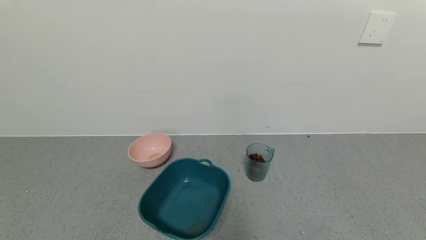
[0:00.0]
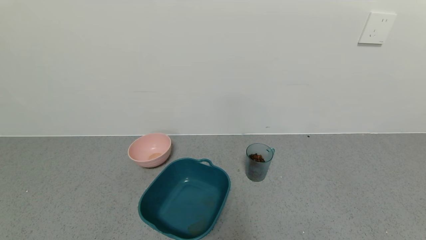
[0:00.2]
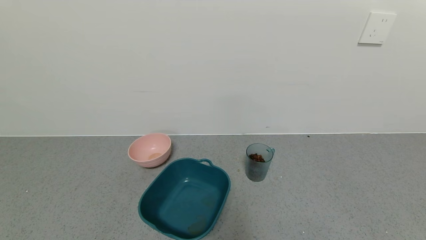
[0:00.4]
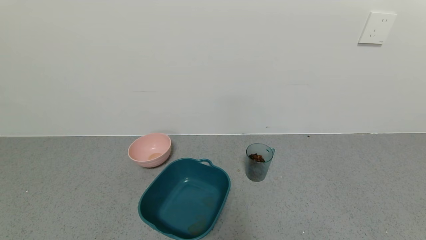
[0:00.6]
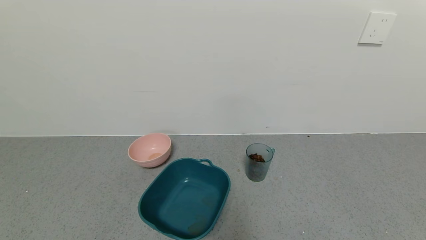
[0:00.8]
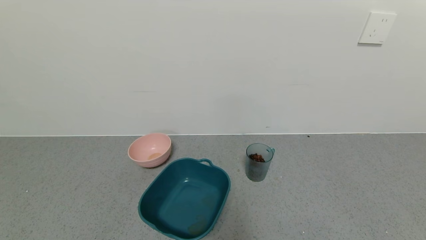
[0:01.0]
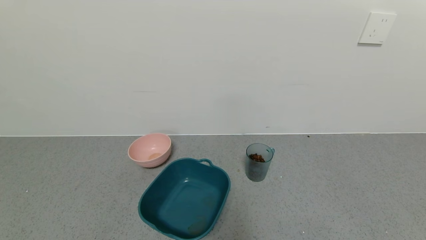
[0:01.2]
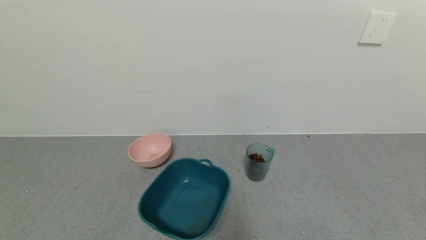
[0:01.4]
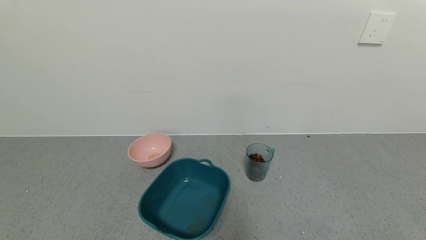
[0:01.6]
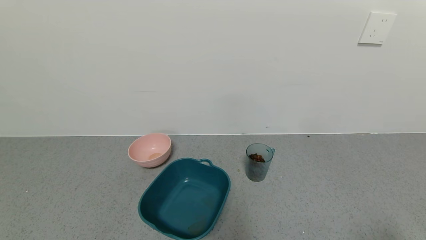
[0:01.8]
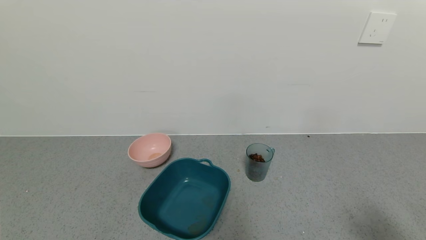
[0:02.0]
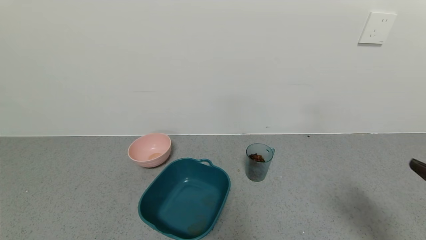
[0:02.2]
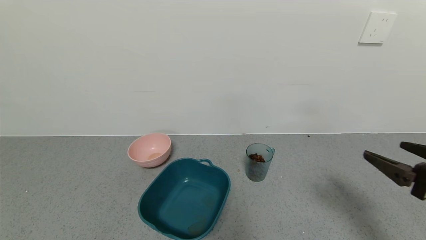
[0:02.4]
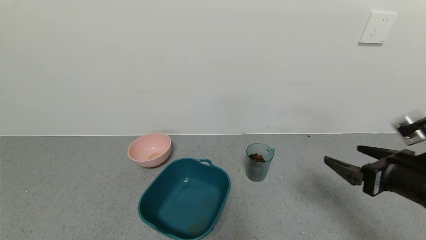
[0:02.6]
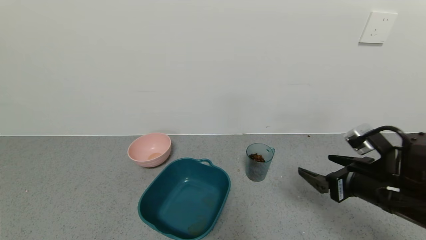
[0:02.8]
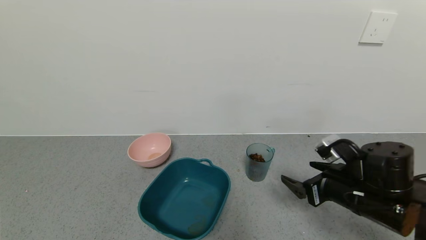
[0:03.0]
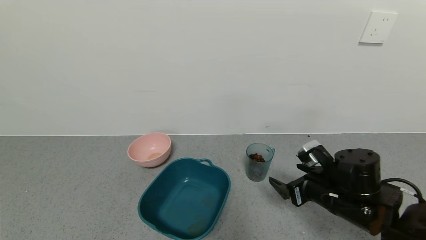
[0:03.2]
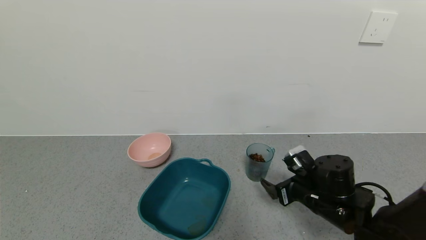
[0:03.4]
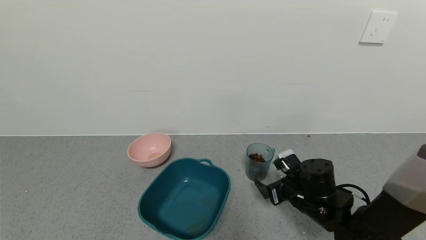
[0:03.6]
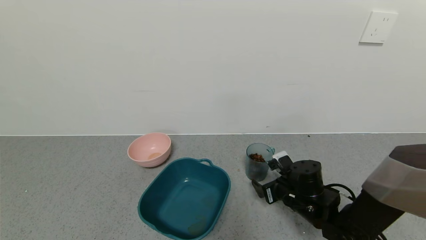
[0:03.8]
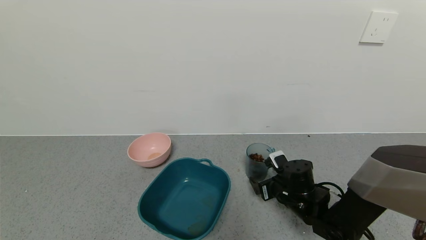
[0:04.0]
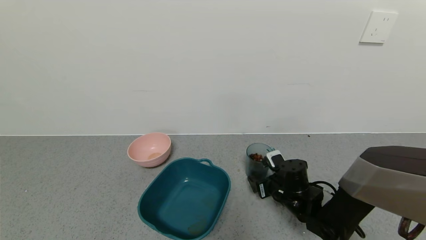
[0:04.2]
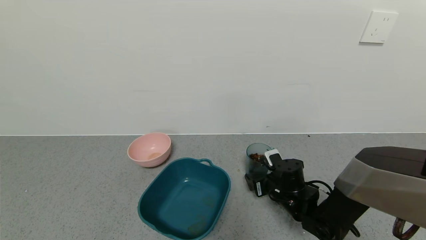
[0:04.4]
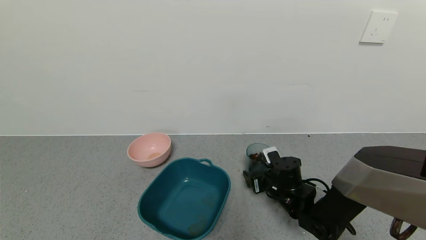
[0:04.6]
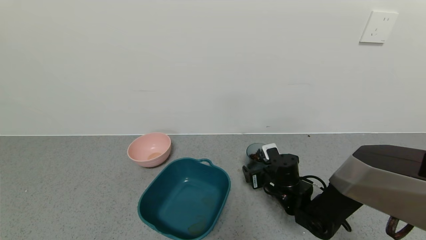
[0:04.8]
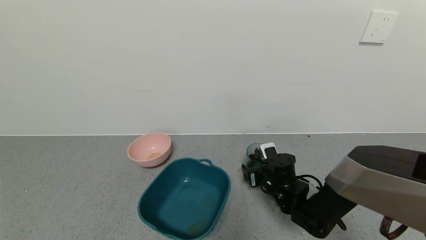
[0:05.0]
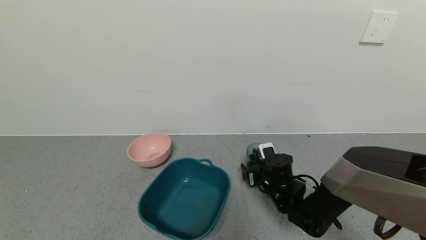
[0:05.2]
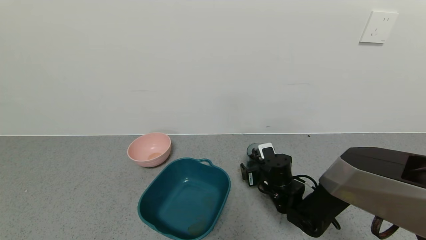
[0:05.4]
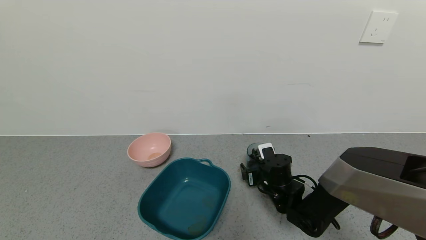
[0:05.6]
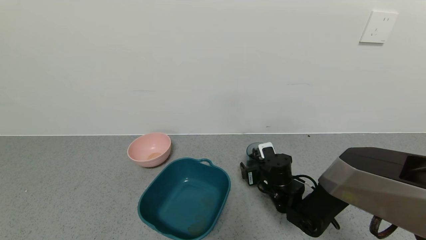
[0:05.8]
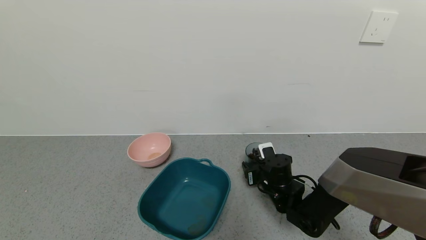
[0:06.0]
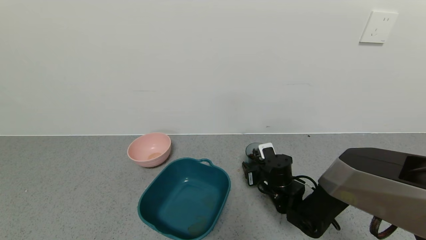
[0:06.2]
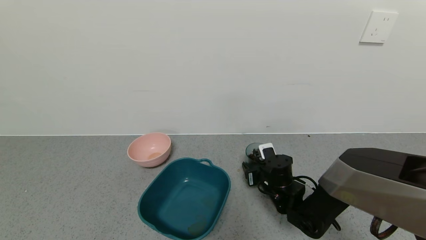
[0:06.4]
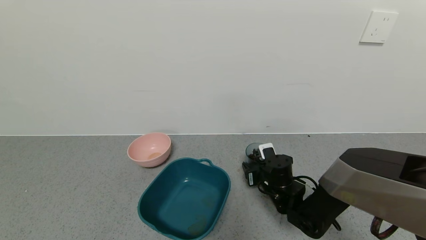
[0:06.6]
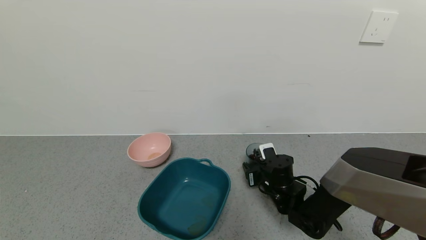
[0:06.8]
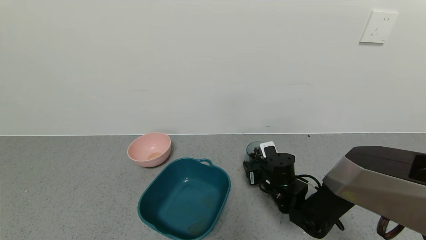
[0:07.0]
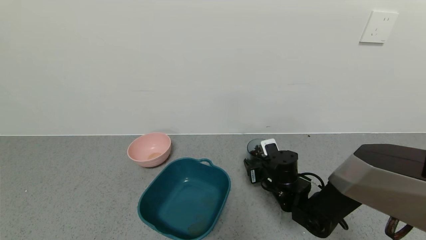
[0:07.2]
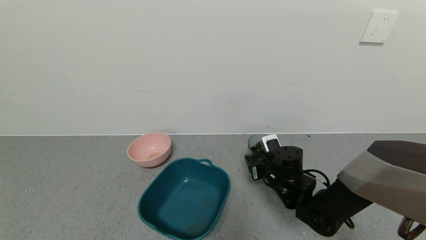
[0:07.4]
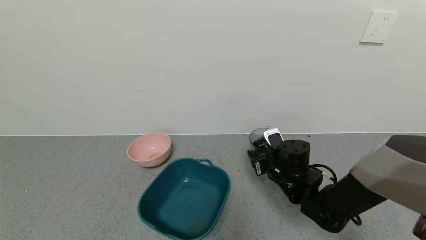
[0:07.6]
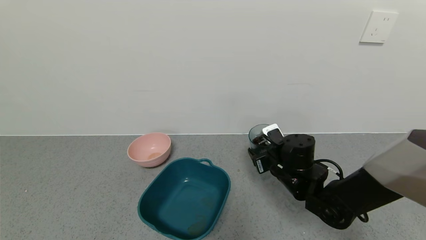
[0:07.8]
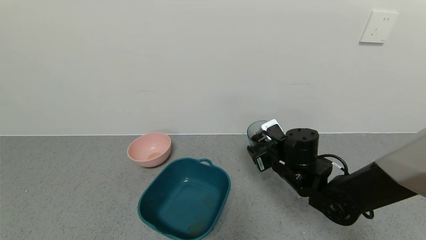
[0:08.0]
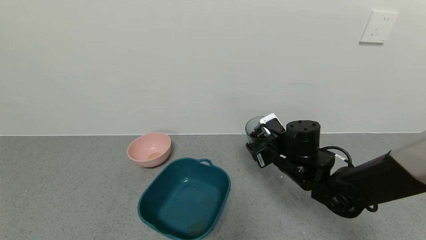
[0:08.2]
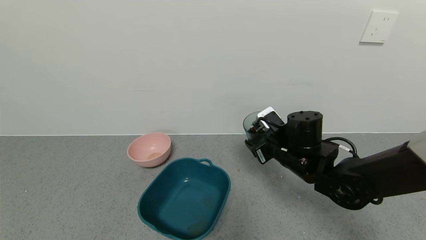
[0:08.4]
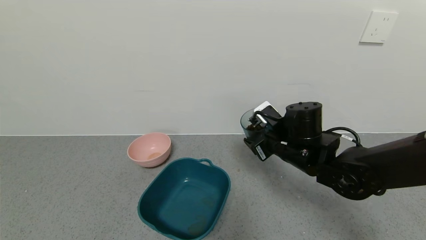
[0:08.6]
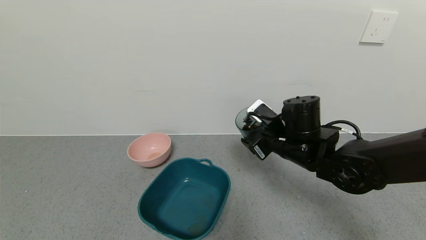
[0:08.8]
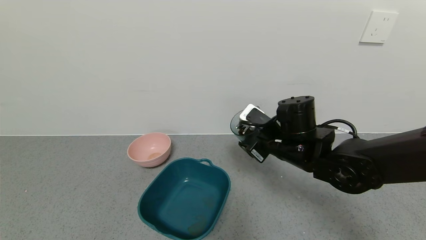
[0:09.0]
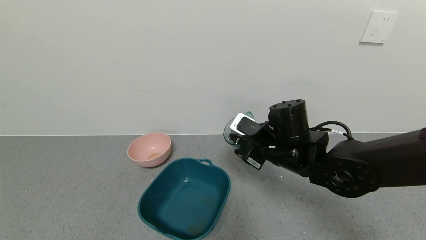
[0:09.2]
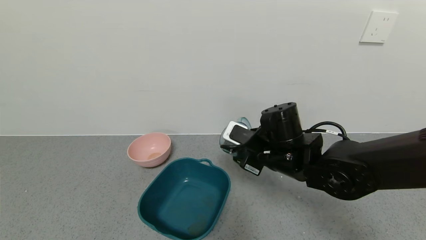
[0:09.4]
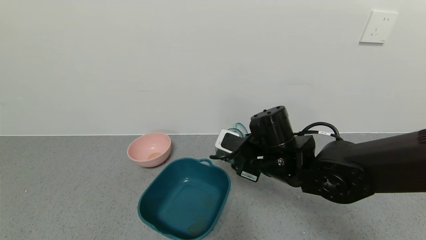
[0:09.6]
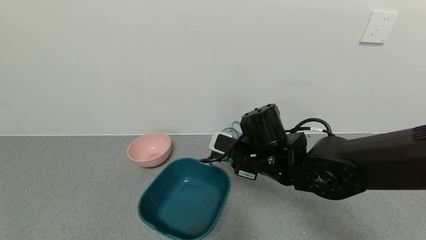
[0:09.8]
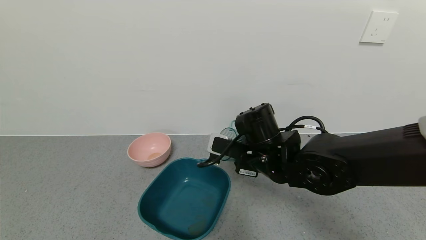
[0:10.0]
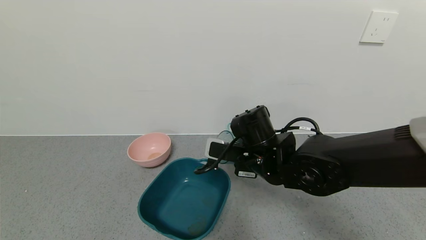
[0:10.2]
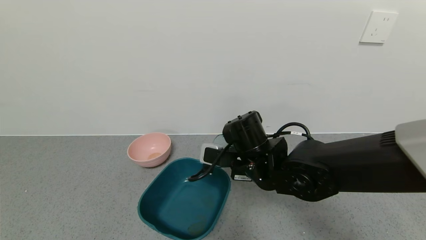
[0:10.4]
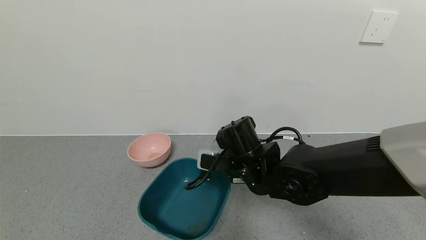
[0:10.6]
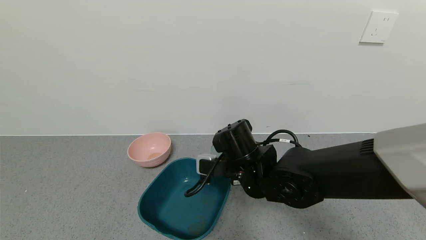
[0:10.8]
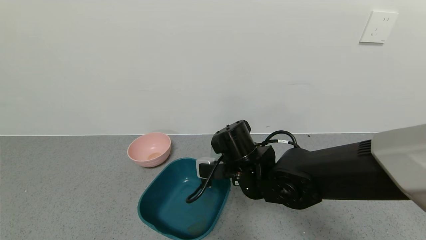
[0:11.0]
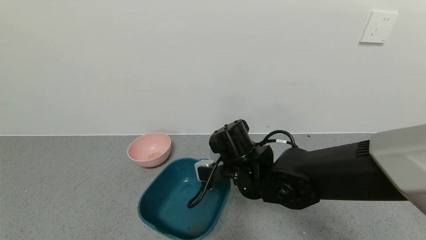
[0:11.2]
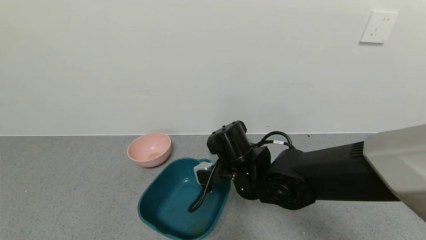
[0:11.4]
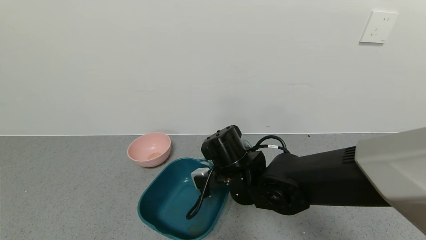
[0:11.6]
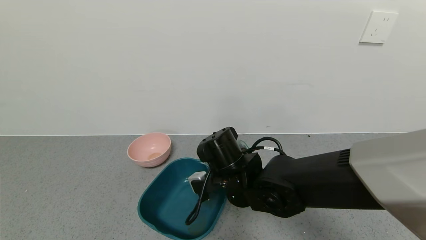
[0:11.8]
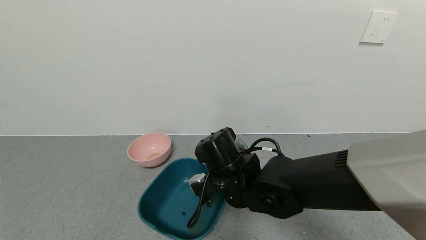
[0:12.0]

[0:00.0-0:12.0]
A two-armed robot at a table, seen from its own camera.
Task of the whole recording: use a gripper to pick up the cup and pour the solid into a bowl or tray.
Step, 0:00.0 to 0:06.4: Grasp the glass of coffee beans with the right gripper.
0:01.6 to 0:03.0: The right gripper shifts some 30 cm forward and to the left.
0:03.0 to 0:04.4: The right gripper is displaced downward, forward and to the left by some 15 cm.
0:04.4 to 0:06.0: The right gripper closes.
0:06.0 to 0:07.6: The right gripper shifts roughly 5 cm upward.
0:07.6 to 0:09.0: The right gripper is displaced upward by some 10 cm.
0:09.0 to 0:10.4: The right gripper shifts approximately 5 cm to the left.

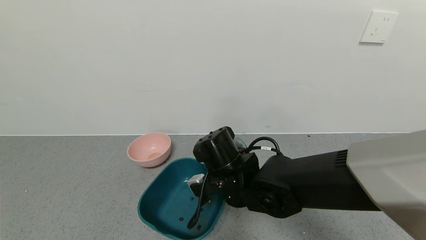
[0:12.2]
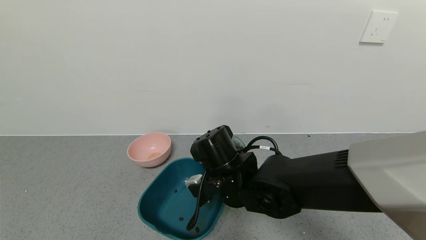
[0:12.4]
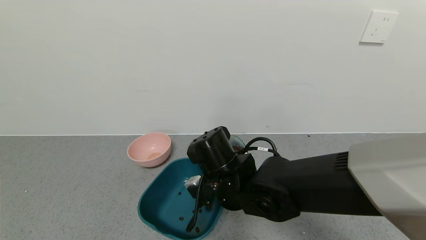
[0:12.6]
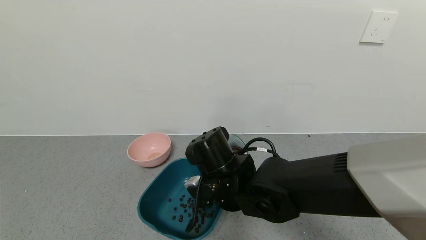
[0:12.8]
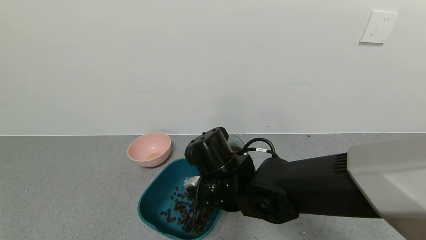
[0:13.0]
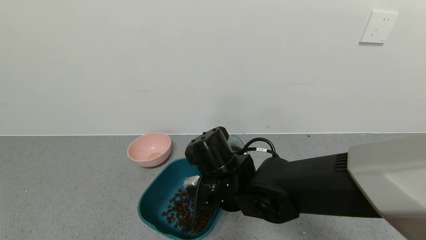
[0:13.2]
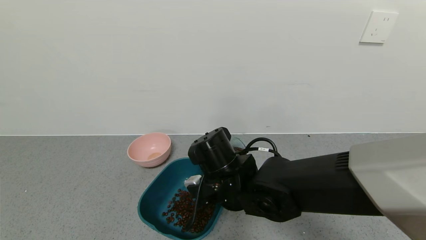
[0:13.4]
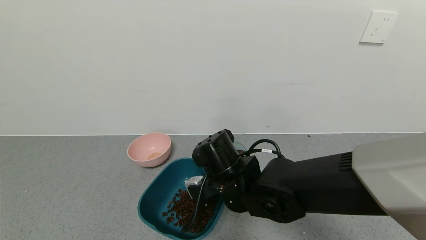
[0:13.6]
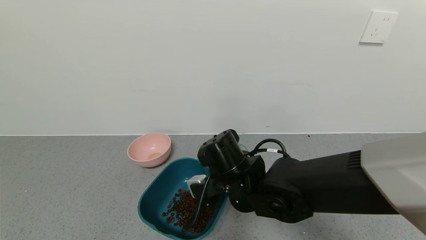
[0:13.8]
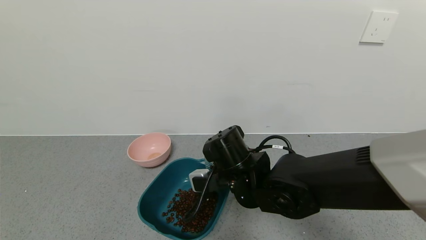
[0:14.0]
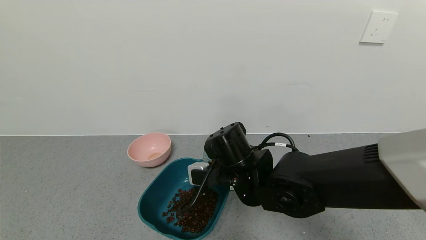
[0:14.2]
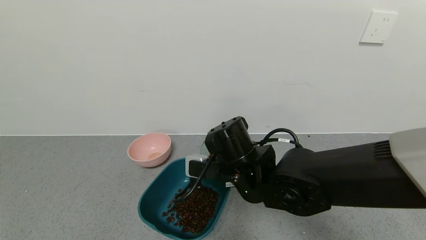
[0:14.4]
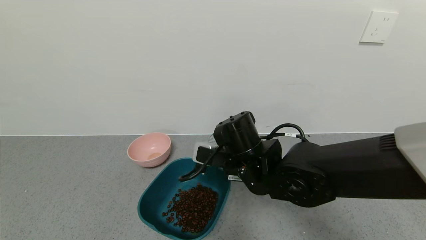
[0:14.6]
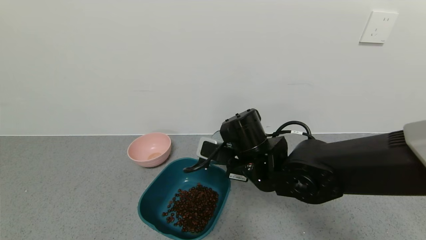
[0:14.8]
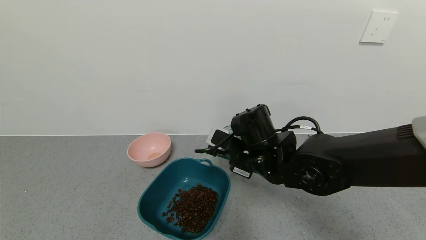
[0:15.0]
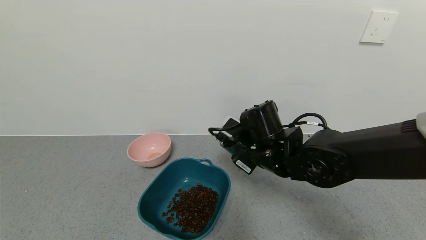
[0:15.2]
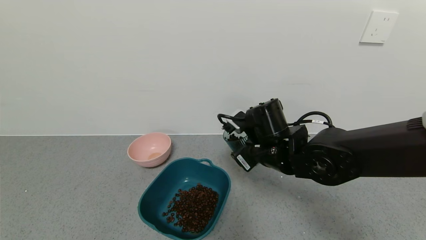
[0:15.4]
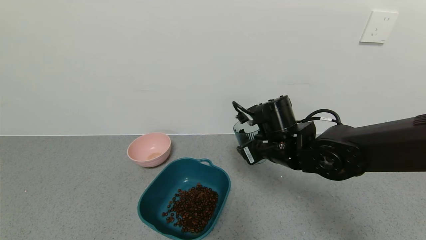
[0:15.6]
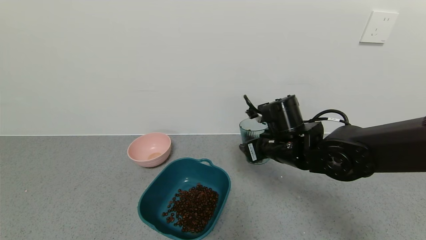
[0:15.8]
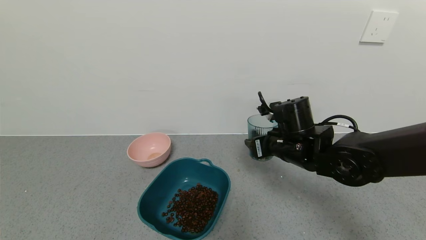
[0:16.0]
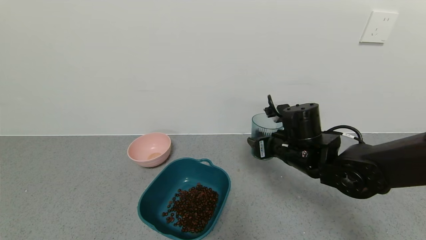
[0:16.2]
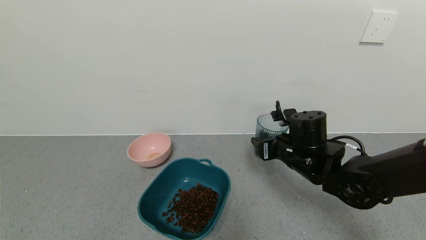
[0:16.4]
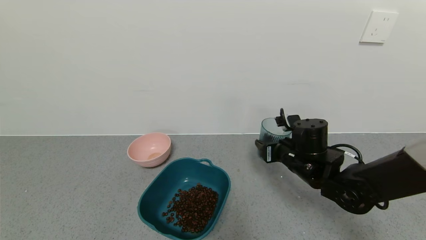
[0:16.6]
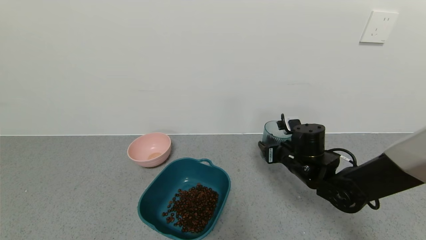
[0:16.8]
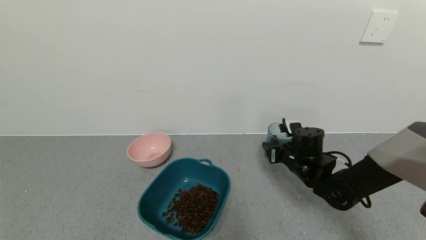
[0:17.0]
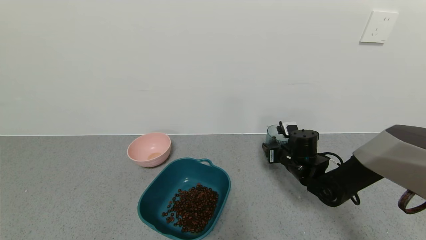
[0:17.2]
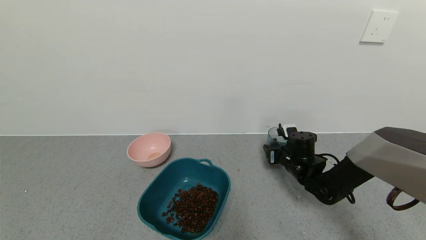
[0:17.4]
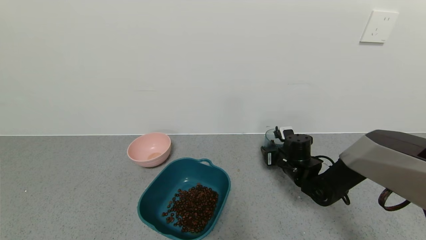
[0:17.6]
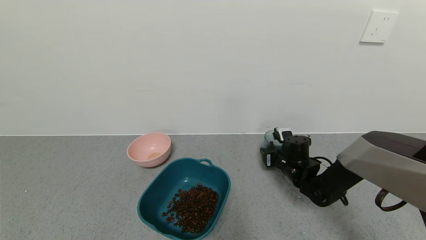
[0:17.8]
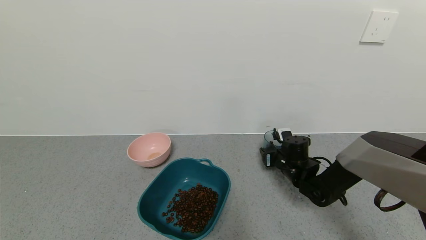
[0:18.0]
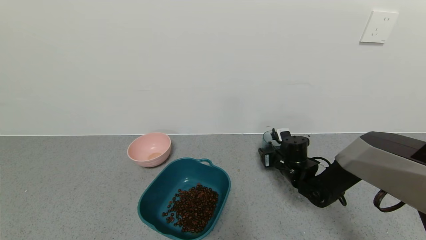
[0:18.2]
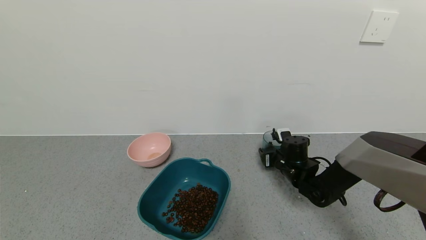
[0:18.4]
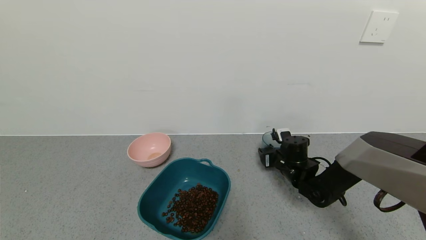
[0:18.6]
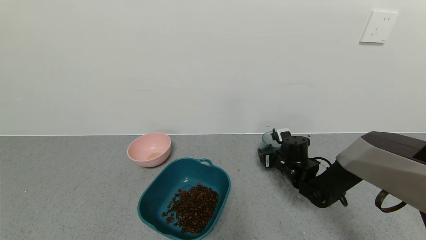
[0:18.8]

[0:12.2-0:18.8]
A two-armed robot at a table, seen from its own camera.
Task of the whole recording: use a gripper to pick up the cup and pour the solid into a bowl or tray.
Step, 0:12.2 to 0:15.4: Pour the coffee beans into the green bowl with the right gripper.
0:12.2 to 0:13.8: The grippers make only small movements.
0:13.8 to 0:15.4: The right gripper moves to the right, some 5 cm.
0:15.4 to 0:17.2: The right gripper travels downward, to the right and forward by about 15 cm.
0:17.2 to 0:18.8: The right gripper opens its fingers.
